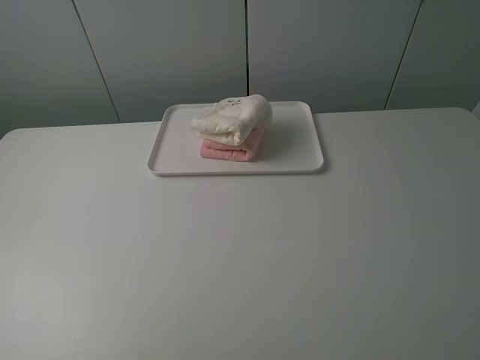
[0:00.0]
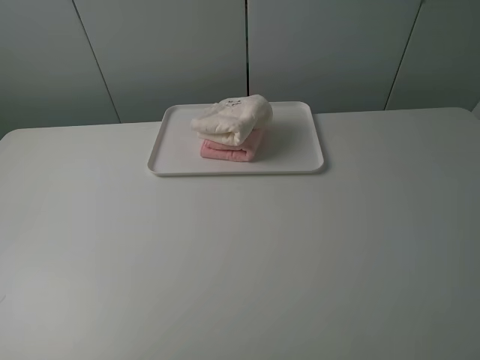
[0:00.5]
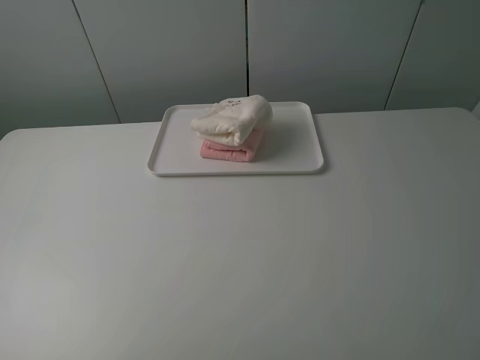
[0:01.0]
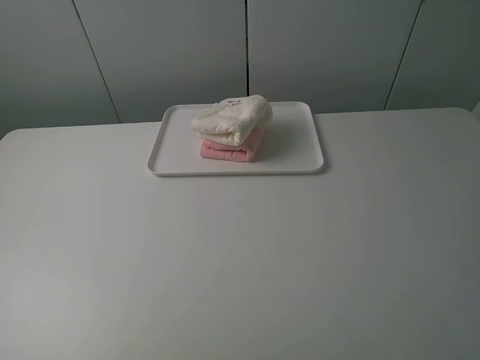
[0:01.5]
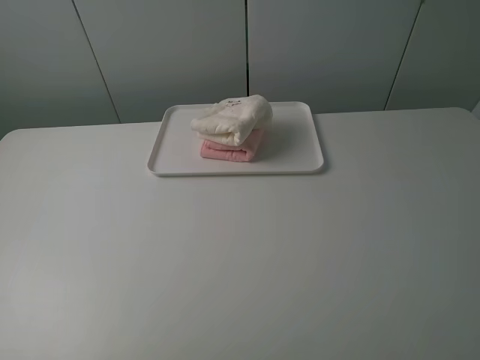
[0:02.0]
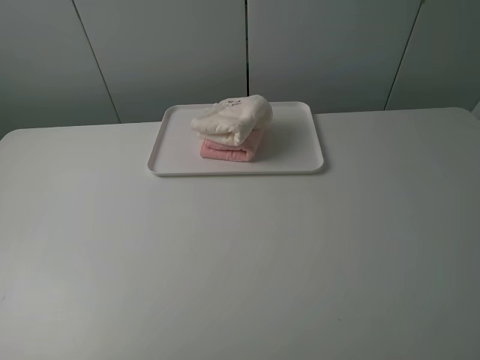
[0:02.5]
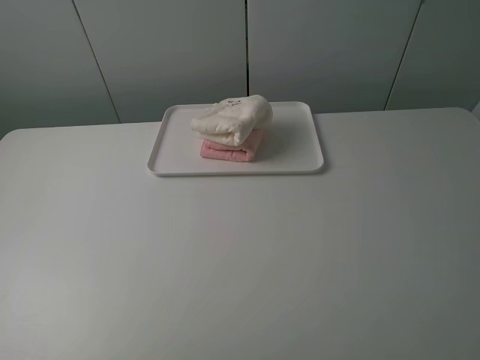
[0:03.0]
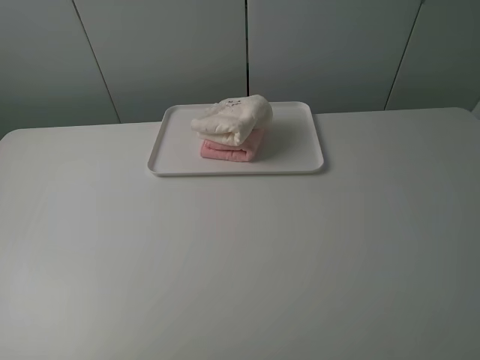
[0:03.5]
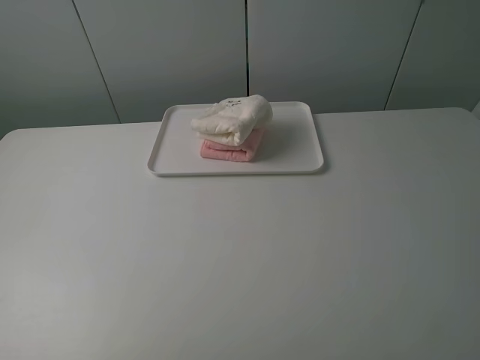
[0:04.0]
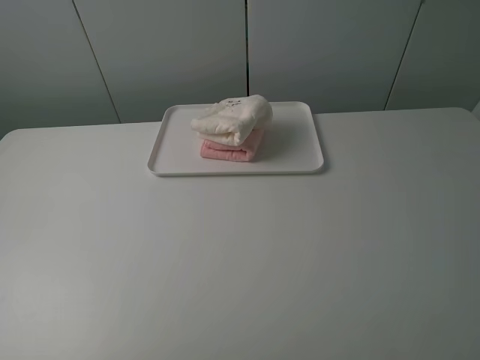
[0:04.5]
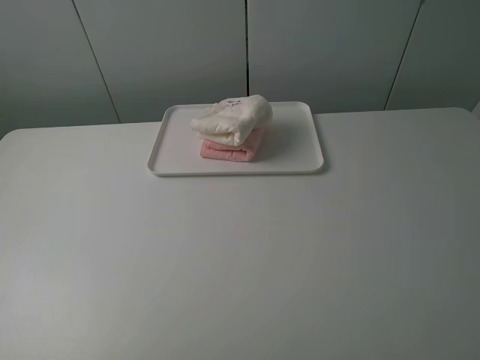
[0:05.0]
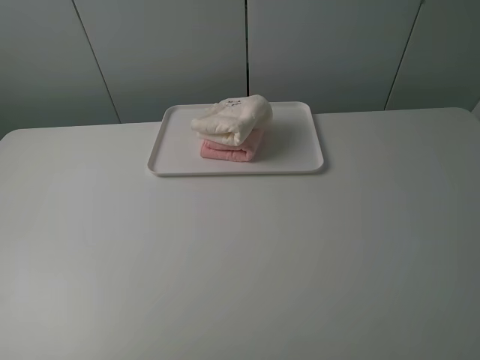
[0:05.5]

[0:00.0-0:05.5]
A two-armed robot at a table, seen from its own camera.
Task of the whole recording: fold one of the towels by two grippers and place it on the tray,then fold another towel by two grippers and place it on the folded towel.
0:02.0 to 0:05.5: Neither gripper changes place.
